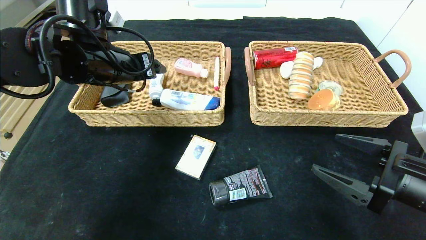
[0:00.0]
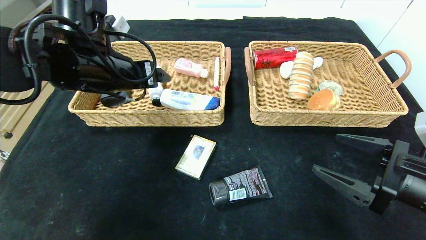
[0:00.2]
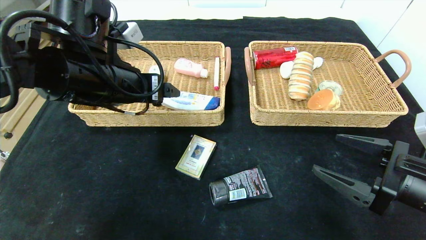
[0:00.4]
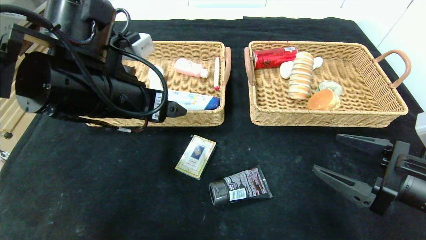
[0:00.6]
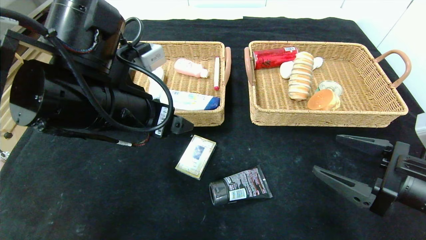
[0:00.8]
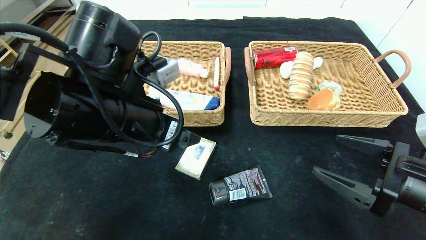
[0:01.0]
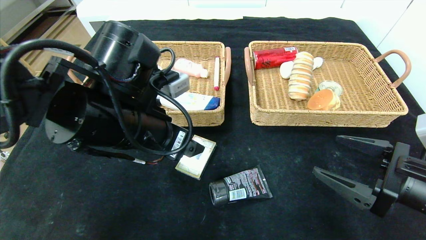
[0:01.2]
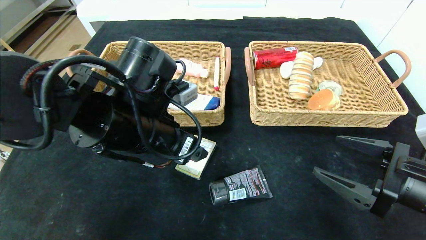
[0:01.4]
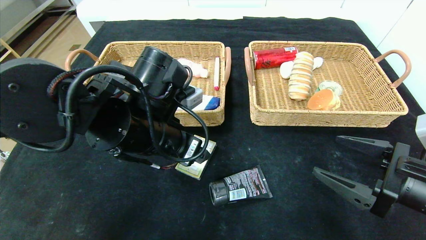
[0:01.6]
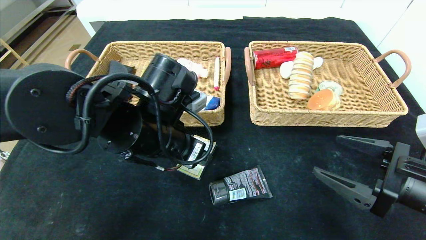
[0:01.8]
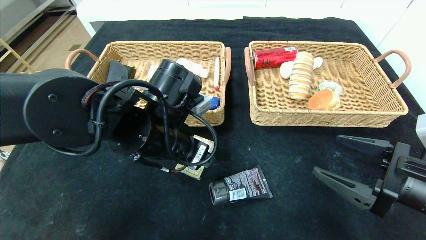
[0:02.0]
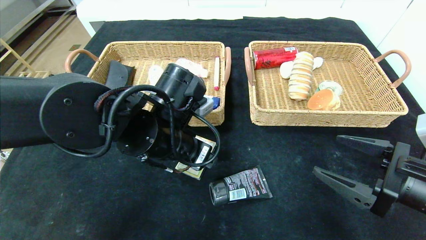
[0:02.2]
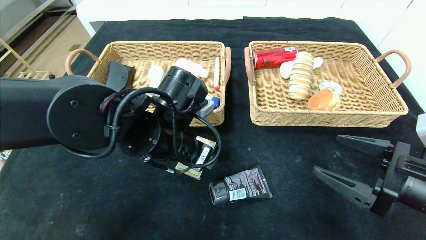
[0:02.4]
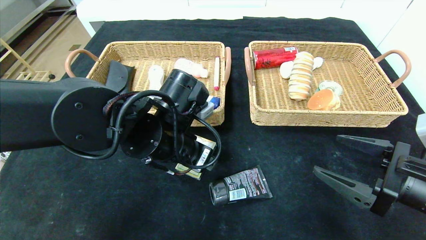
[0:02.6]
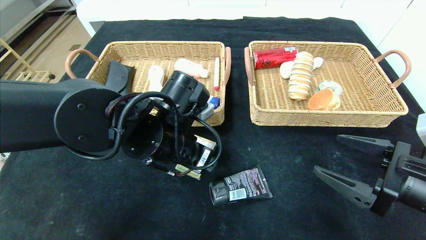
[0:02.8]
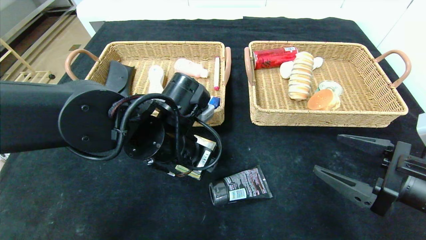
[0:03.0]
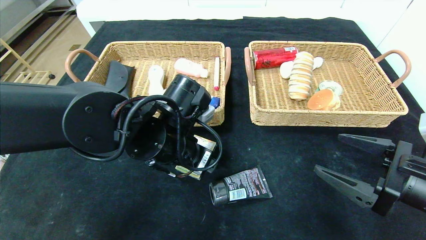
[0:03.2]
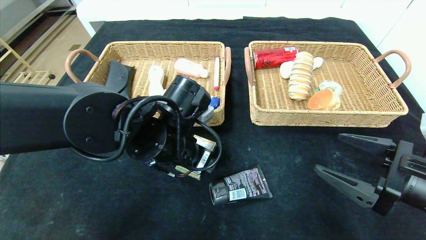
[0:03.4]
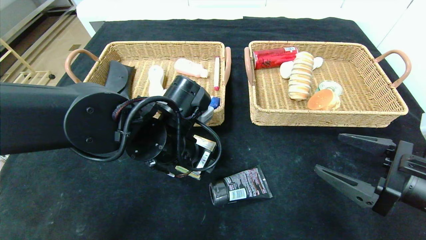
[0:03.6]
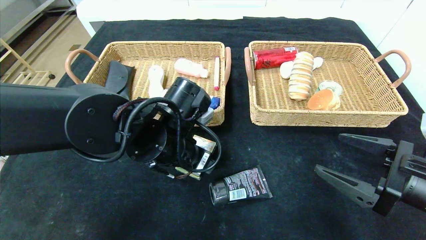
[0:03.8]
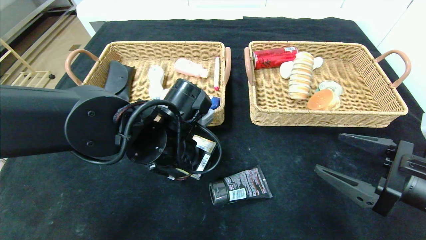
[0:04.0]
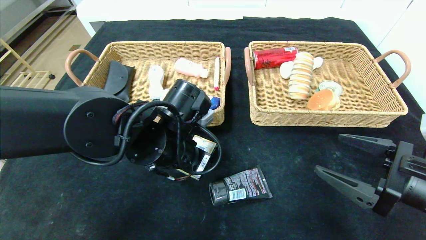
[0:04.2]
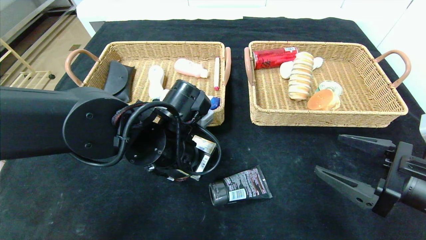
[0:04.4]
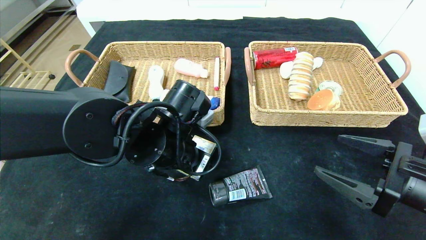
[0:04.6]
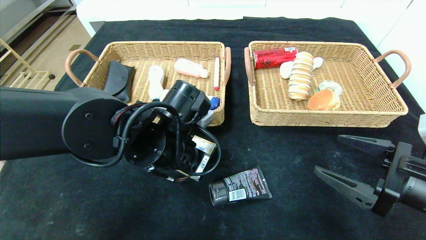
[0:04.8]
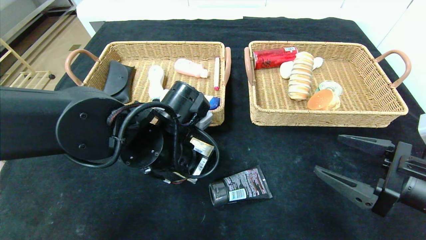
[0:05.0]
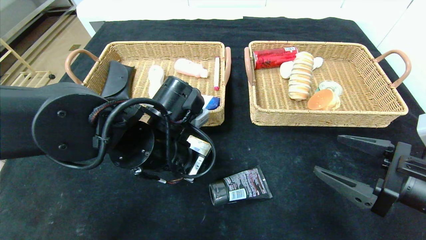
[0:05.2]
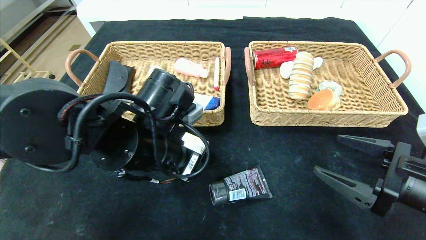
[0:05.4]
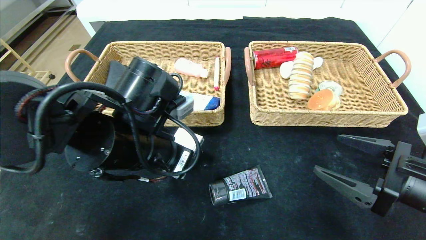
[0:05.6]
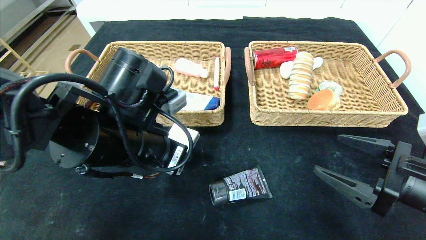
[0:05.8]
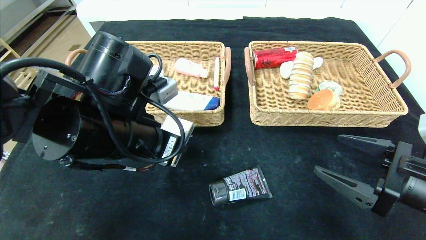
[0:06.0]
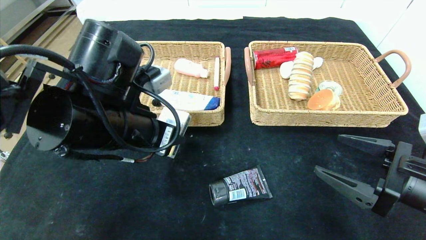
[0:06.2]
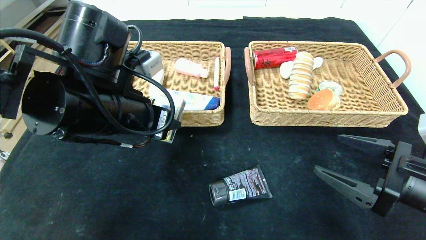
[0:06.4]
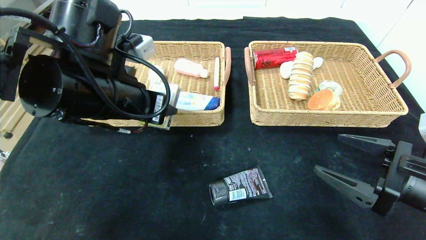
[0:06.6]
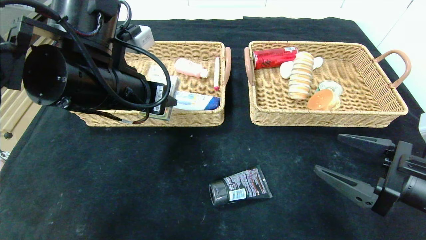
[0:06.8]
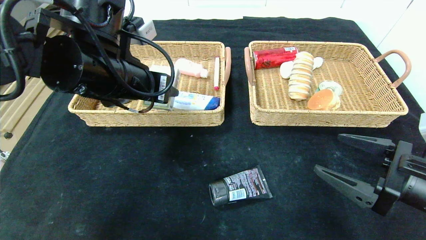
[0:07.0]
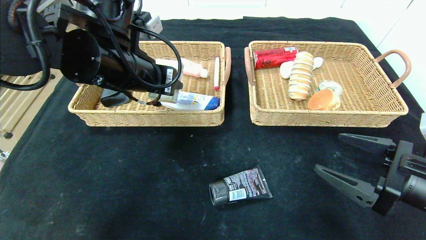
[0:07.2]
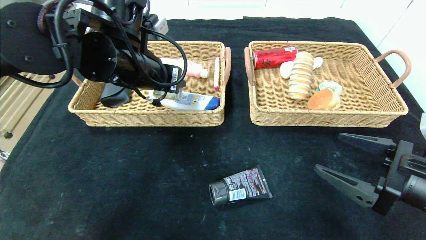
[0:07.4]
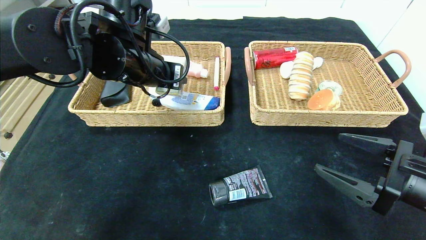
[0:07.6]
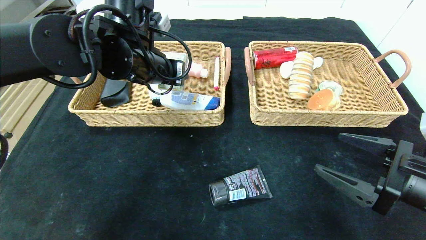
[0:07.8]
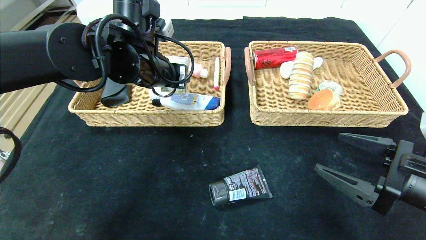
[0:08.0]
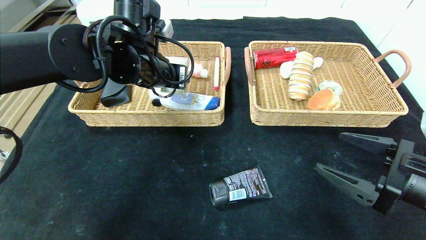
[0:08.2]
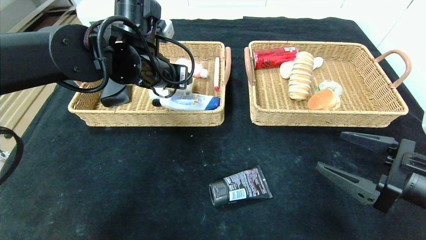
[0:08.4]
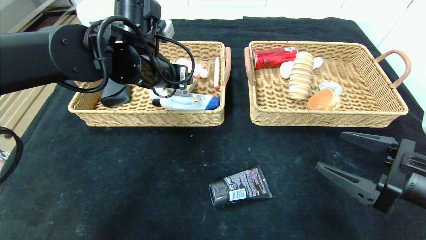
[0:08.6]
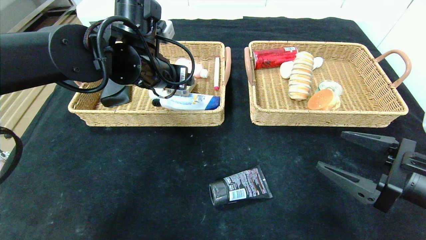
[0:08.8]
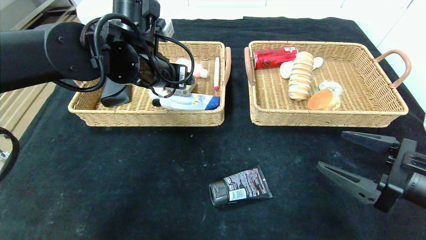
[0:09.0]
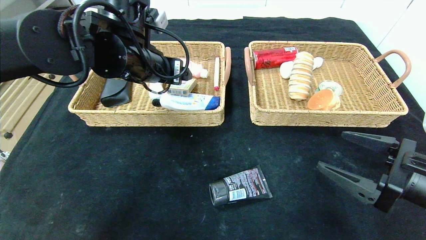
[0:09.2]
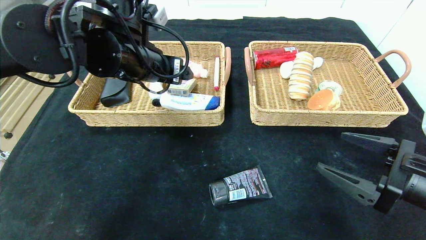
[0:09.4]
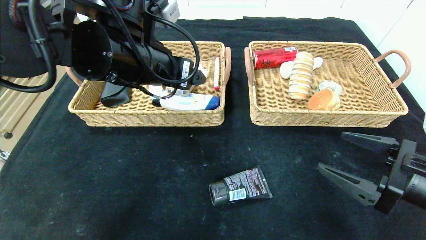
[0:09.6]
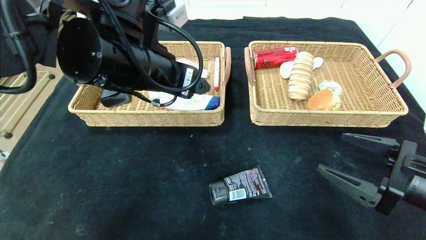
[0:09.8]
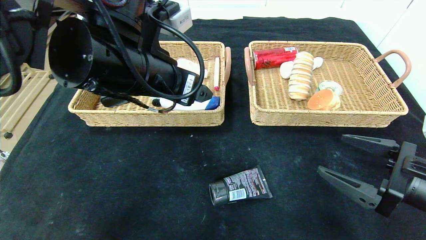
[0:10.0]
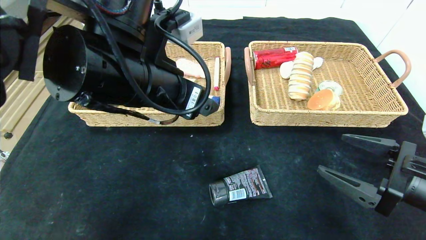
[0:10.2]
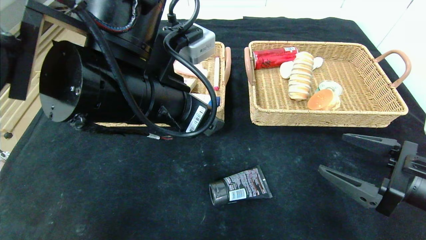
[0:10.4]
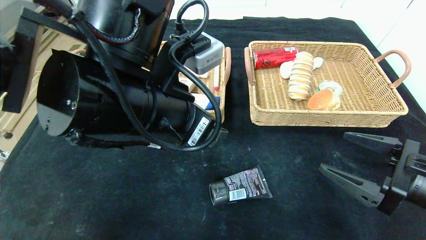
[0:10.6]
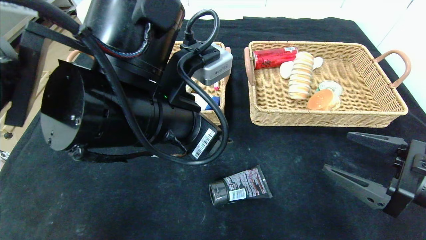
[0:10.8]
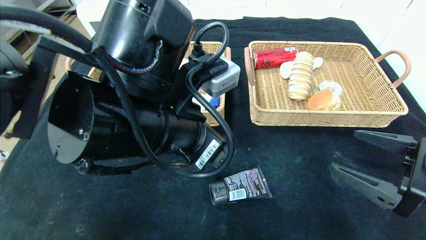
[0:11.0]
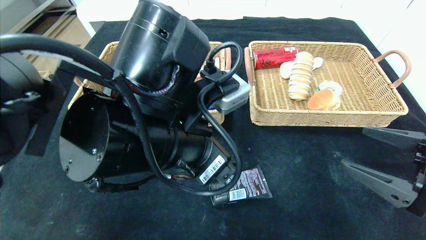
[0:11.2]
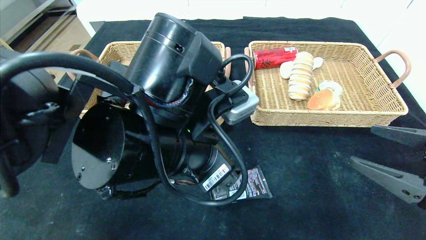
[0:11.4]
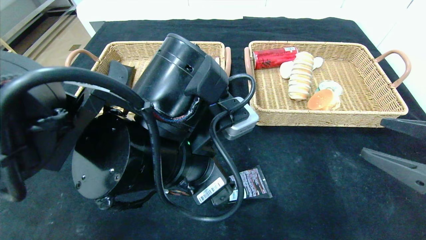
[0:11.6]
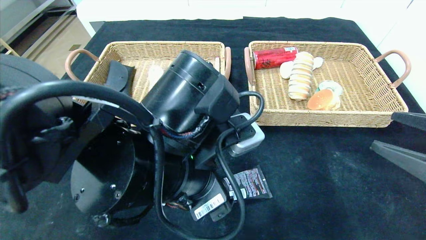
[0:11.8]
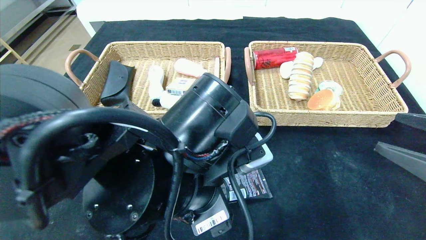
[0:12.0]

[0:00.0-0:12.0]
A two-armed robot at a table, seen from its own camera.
Step, 0:00.0 to 0:08.6: Grasp the playing cards and put it in the left basket.
0:00.0 to 0:01.6: The left gripper is displaced to the right, backward and downward by approximately 15 cm.
0:01.6 to 0:03.0: The grippers make only small movements.
0:03.0 to 0:04.4: The left gripper closes its fingers.
0:04.4 to 0:06.0: The left gripper goes roughly 5 cm upward.
0:06.0 to 0:07.6: The left gripper heads forward and upward, covering some 10 cm.
0:07.6 to 0:09.0: The left gripper opens.
0:09.0 to 0:10.4: The left gripper goes some 15 cm backward.
0:10.4 to 0:12.0: The right gripper goes roughly 5 cm upward, while the left gripper heads downward, covering some 5 cm.

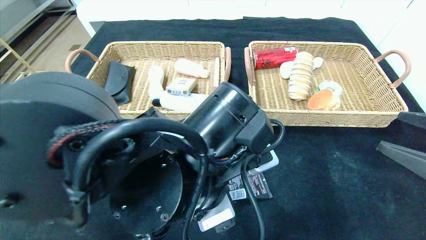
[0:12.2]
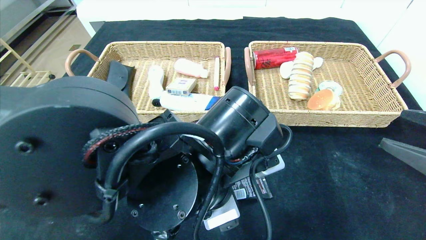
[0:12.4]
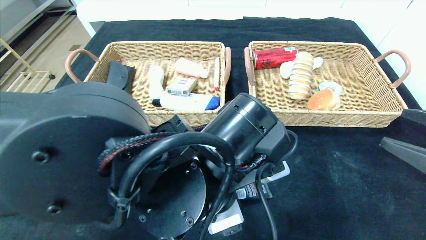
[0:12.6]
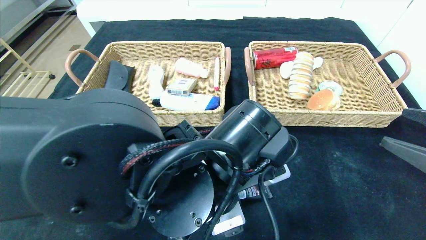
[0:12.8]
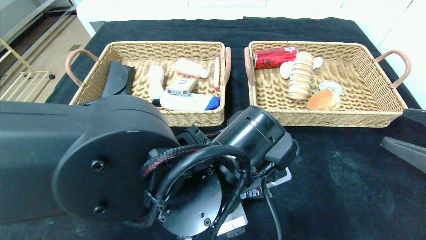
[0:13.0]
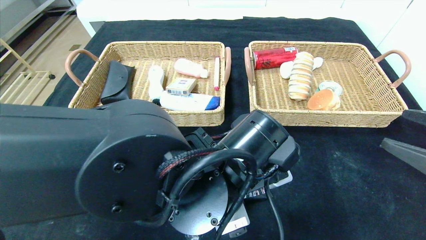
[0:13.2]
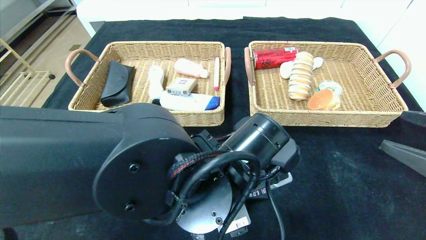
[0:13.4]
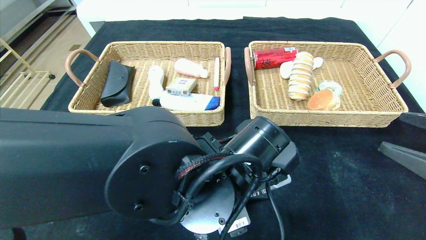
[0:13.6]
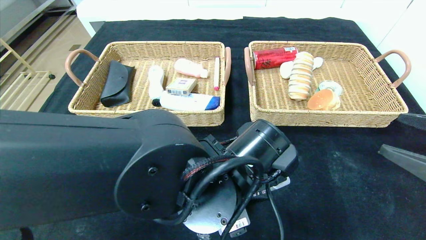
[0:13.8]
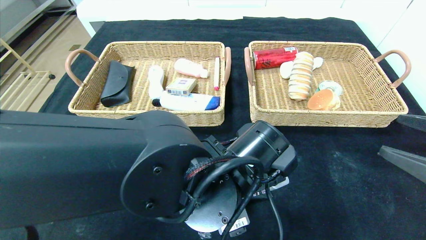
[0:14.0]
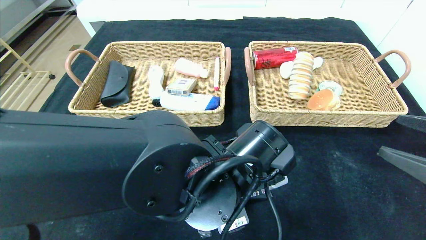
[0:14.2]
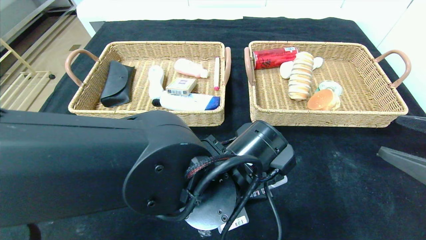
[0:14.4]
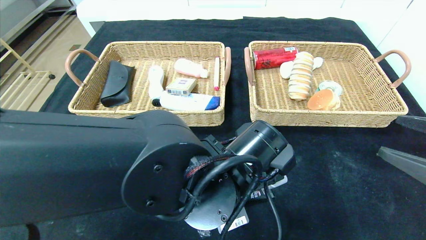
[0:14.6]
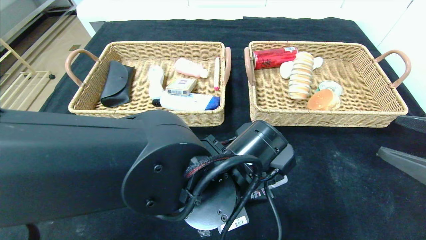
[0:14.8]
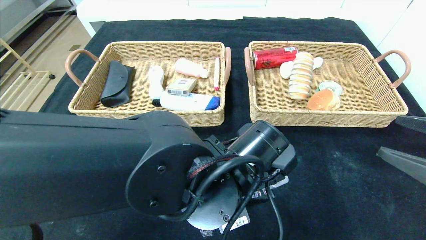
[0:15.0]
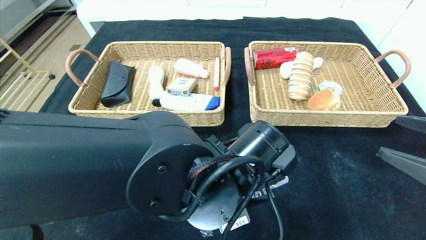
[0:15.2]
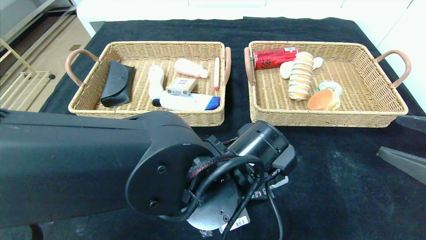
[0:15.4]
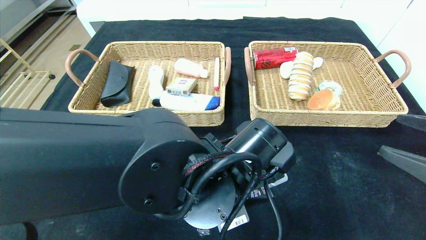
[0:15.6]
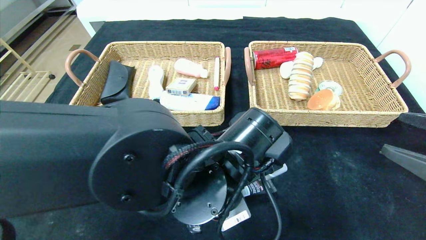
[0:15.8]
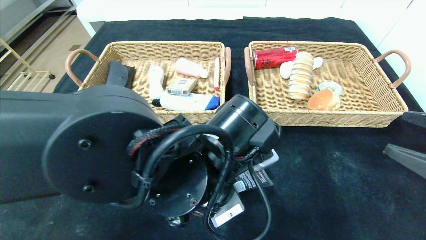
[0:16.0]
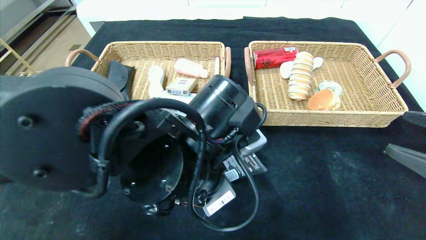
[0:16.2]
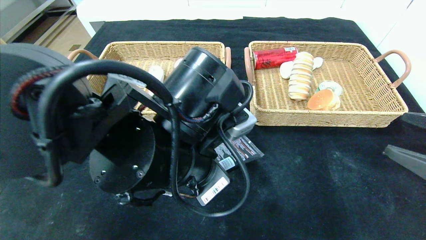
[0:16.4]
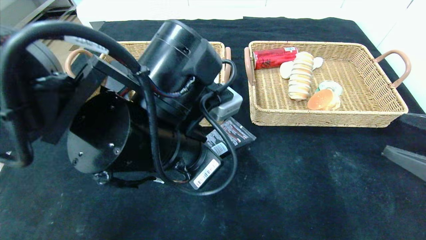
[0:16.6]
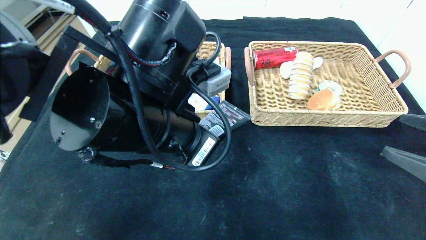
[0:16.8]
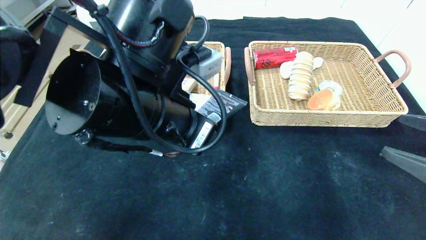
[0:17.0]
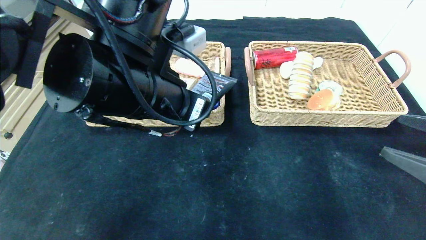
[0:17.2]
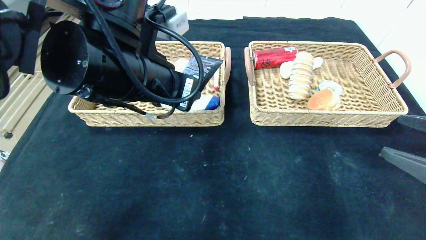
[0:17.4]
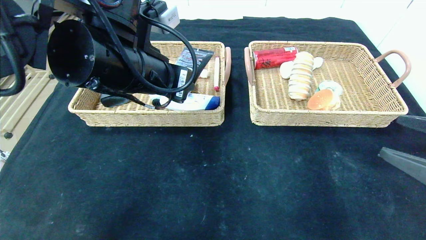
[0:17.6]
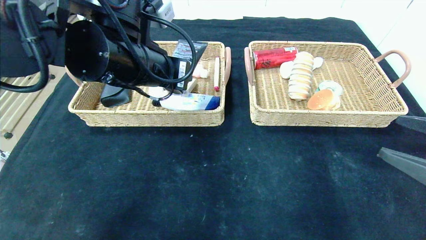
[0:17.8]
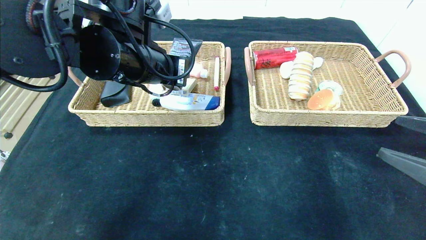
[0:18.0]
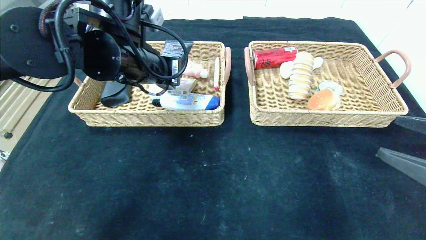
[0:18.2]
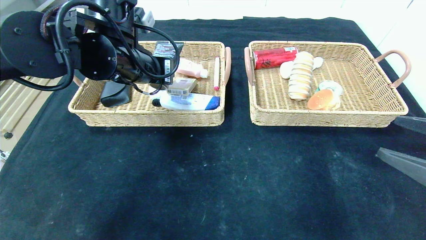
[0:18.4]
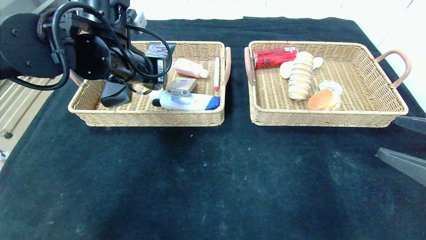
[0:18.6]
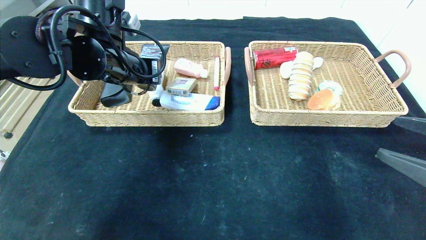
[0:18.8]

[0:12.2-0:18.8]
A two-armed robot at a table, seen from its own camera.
0:12.2 to 0:13.8: The left gripper shifts by some 5 cm.
0:13.8 to 0:15.4: The left gripper closes.
0:15.4 to 0:17.2: The left gripper moves upward and to the left, approximately 15 cm.
0:17.2 to 0:18.8: The left gripper is displaced forward and to the left by approximately 15 cm.
